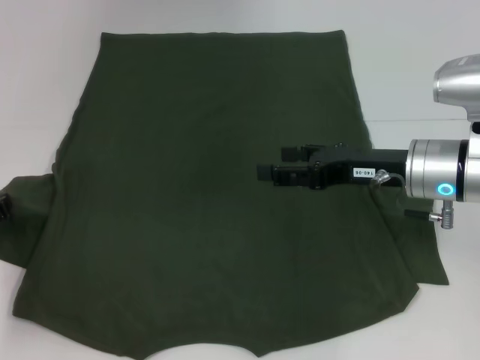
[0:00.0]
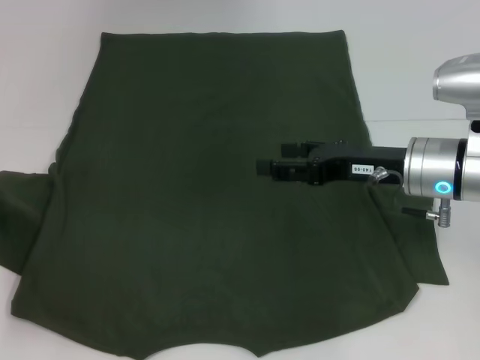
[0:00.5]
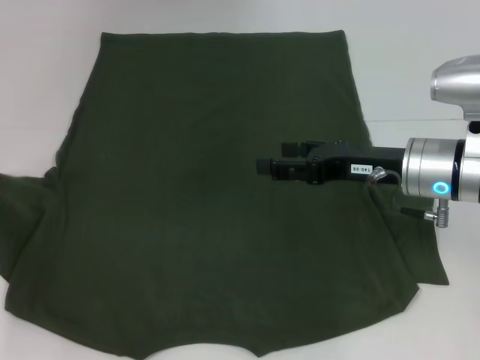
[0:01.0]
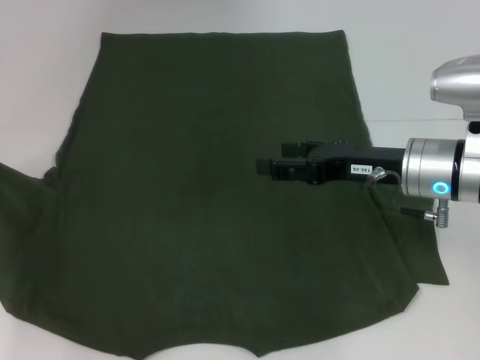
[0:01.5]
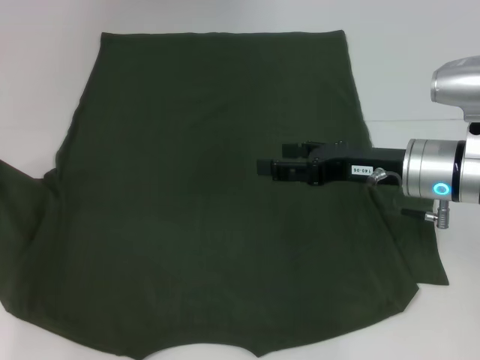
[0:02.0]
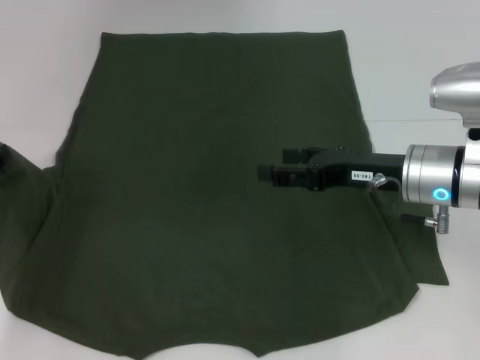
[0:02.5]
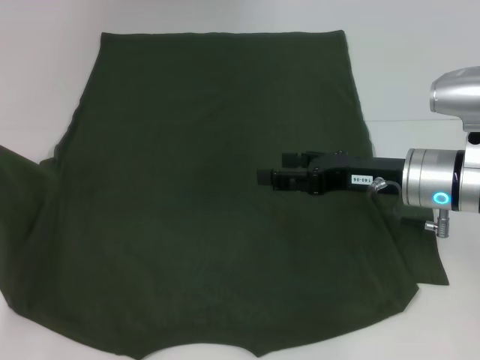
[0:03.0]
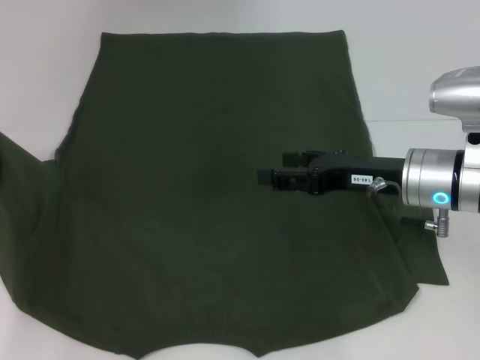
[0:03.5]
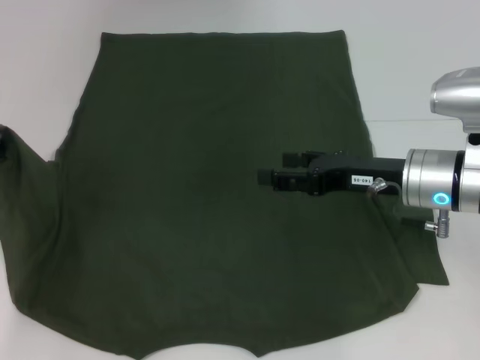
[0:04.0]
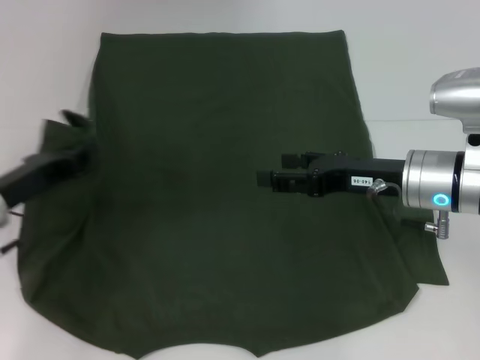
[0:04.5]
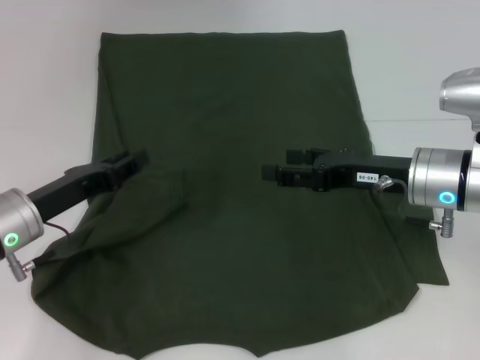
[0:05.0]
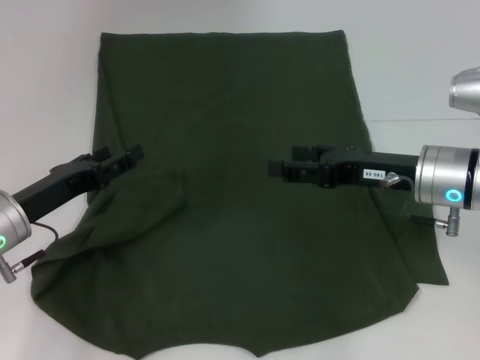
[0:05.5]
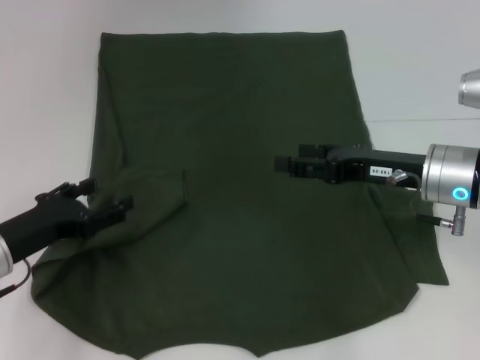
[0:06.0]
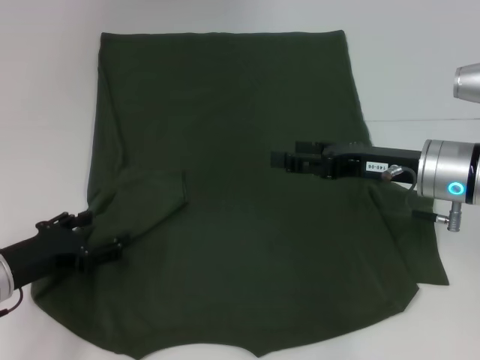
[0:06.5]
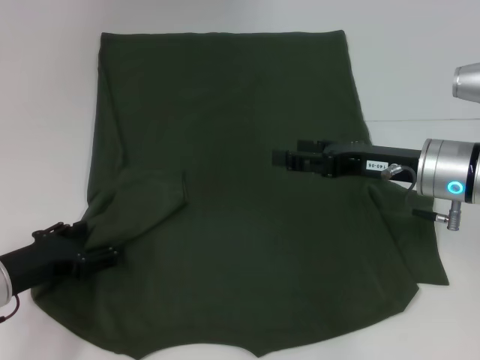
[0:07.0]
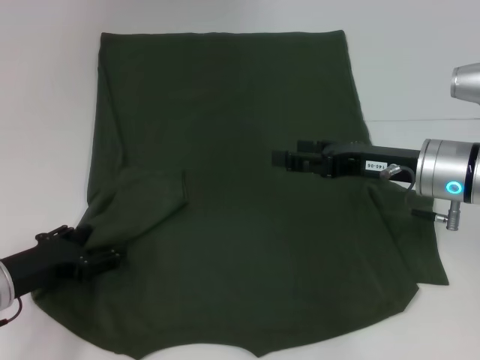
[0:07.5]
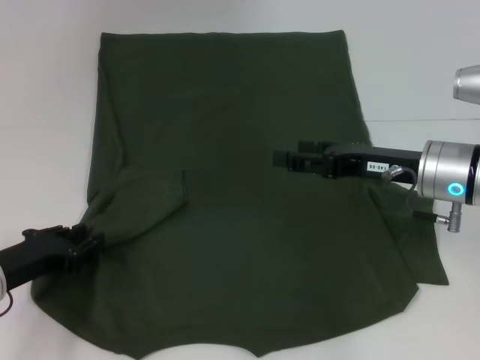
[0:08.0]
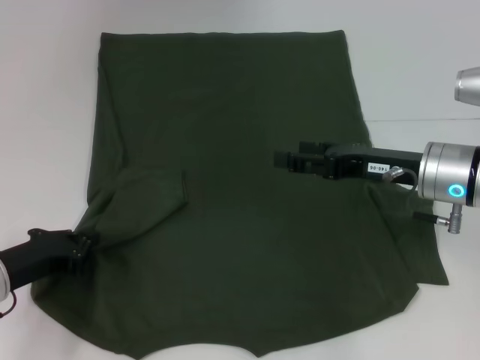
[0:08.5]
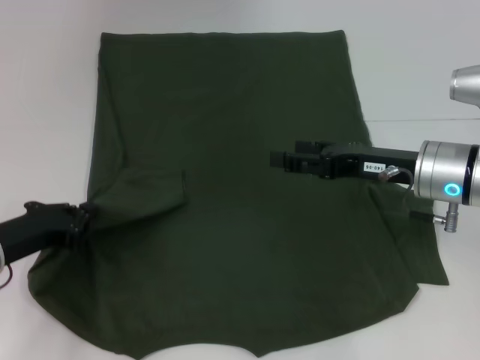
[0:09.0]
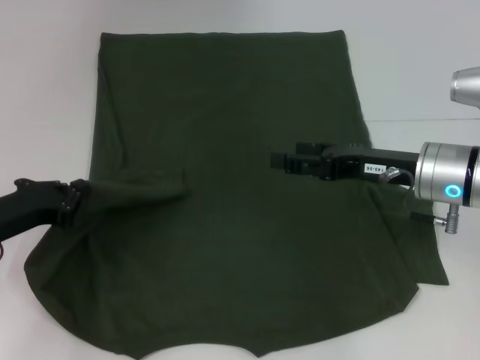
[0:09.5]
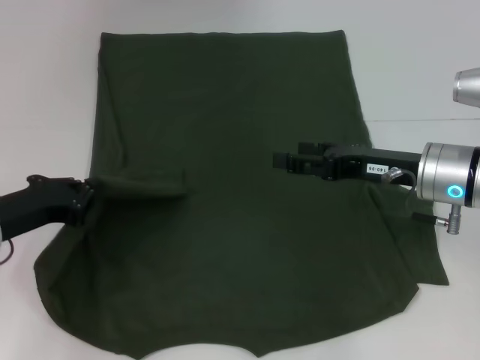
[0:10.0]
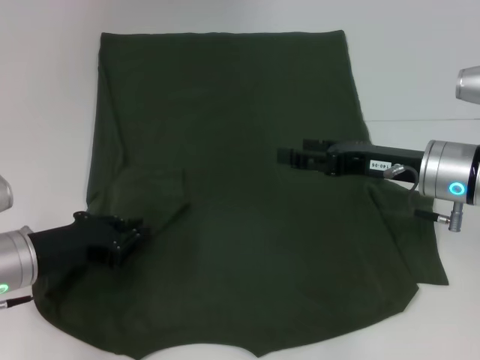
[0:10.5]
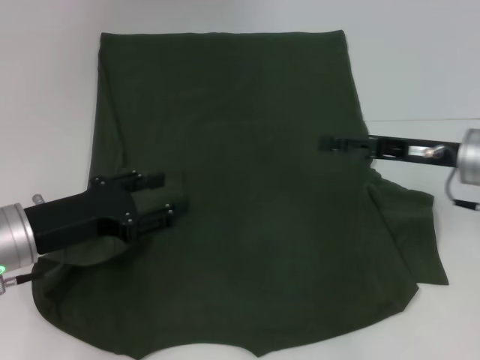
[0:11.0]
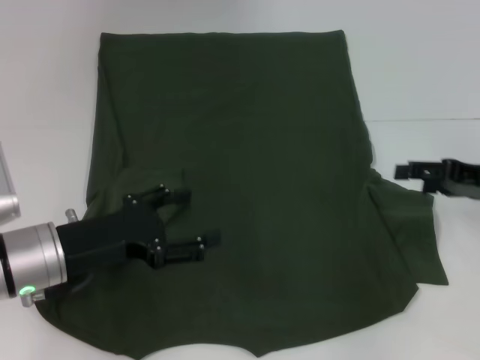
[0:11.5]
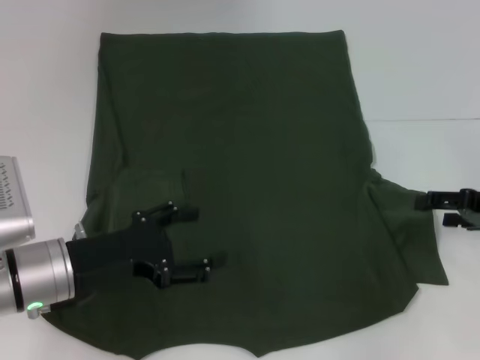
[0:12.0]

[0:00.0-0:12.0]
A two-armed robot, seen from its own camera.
Step, 0:00.0 to 0:05.0: Fold the bottom left sleeve with your left hand.
0:00.0 to 0:02.0: There are only small adjustments of the grippers.
0:02.0 to 0:04.0: The grippers stay close to where they were, moving slightly.
0:04.0 to 0:06.0: The left gripper travels to the right by roughly 5 cm, and opens up.
0:06.0 to 0:08.0: The left gripper closes up.
0:08.0 to 0:10.0: The left gripper shifts some 5 cm upward, and closes its fingers.
0:10.0 to 0:12.0: The right gripper heads to the right, covering some 15 cm, while the left gripper shifts approximately 5 cm to the right, and opens up.

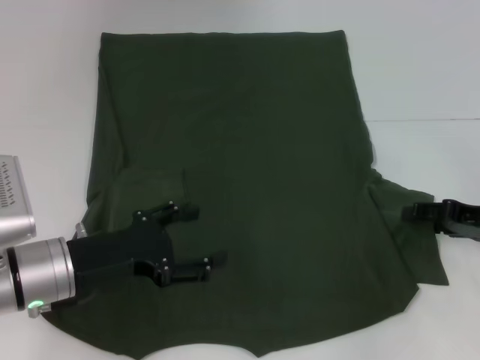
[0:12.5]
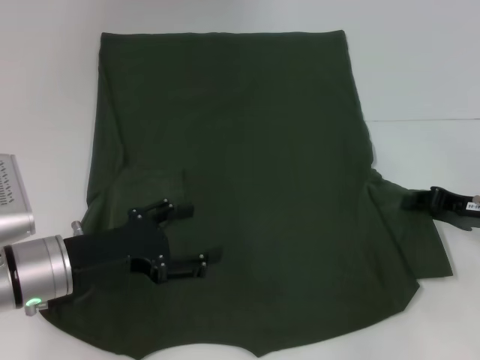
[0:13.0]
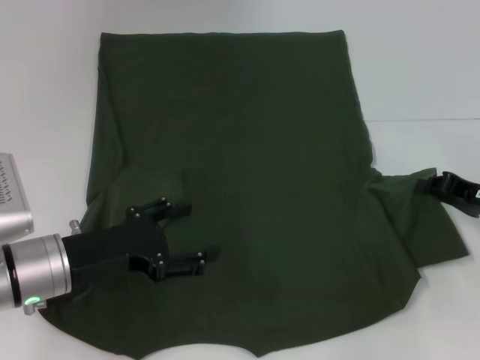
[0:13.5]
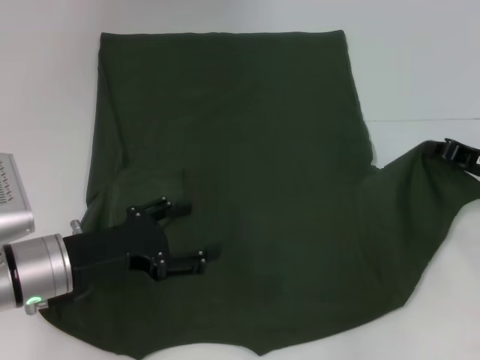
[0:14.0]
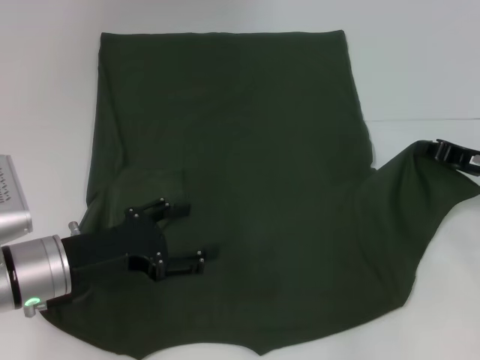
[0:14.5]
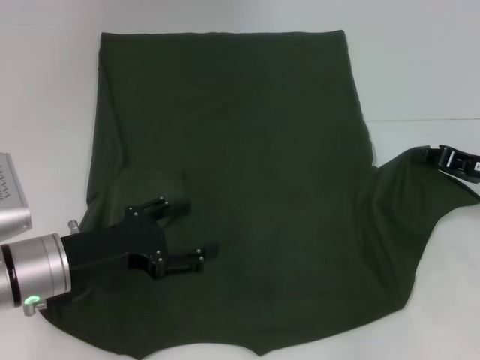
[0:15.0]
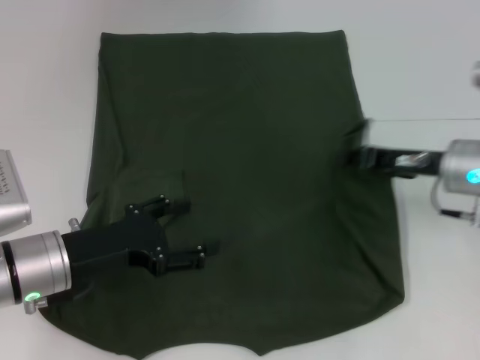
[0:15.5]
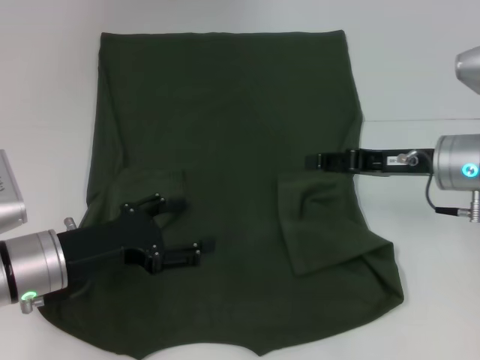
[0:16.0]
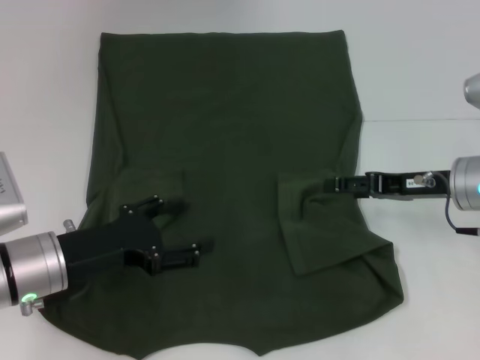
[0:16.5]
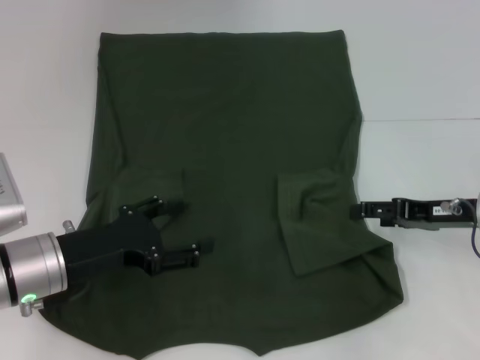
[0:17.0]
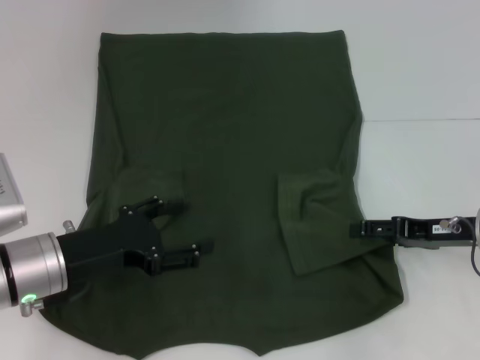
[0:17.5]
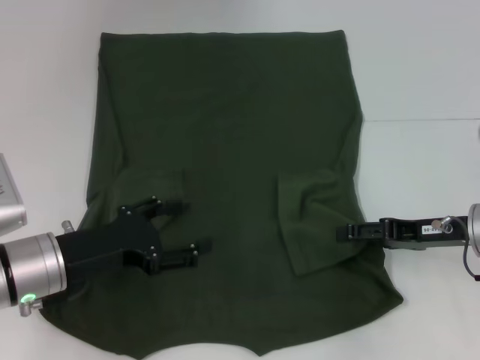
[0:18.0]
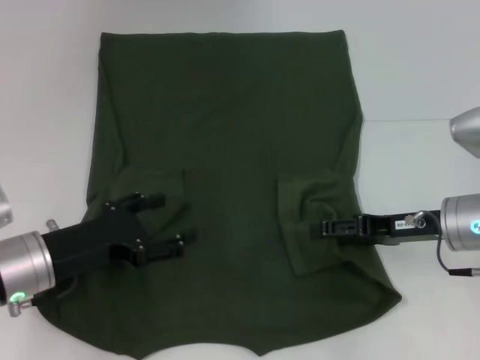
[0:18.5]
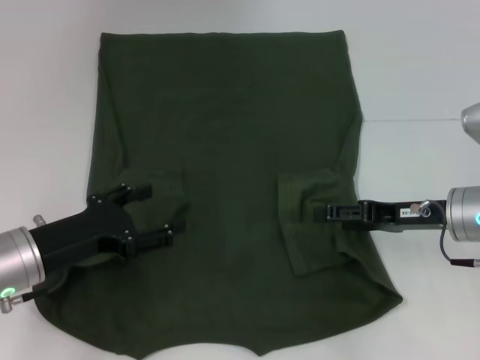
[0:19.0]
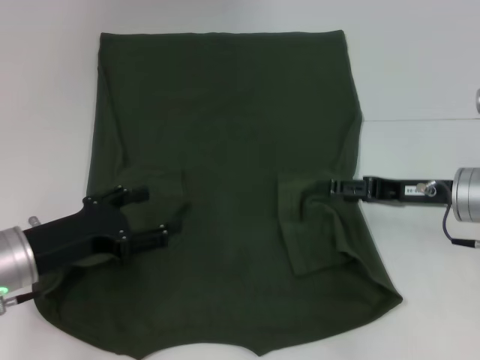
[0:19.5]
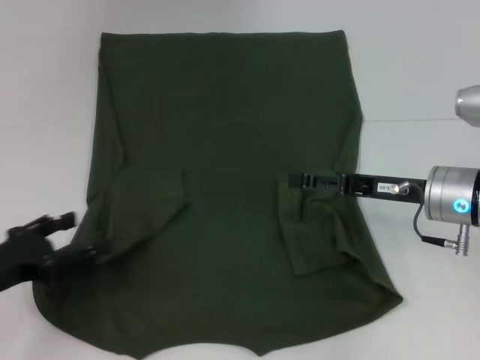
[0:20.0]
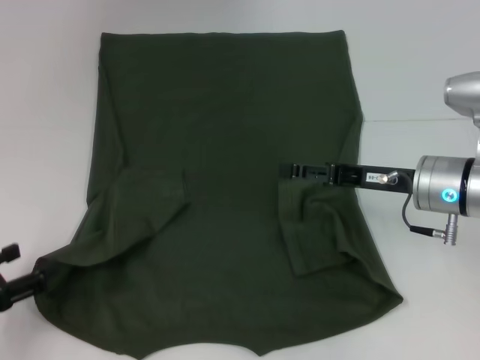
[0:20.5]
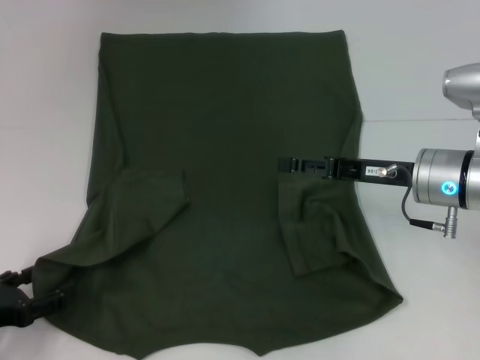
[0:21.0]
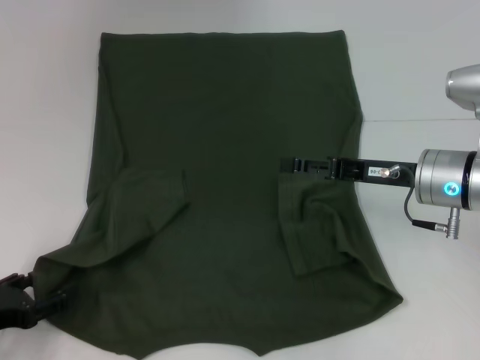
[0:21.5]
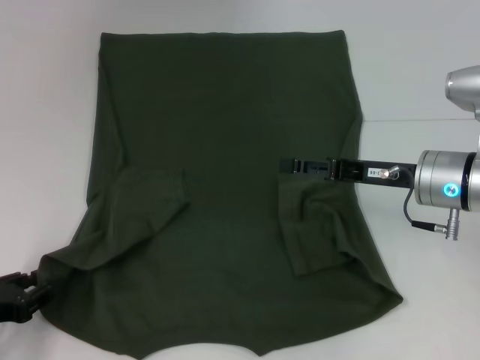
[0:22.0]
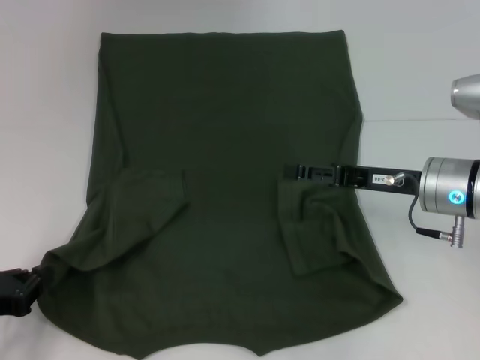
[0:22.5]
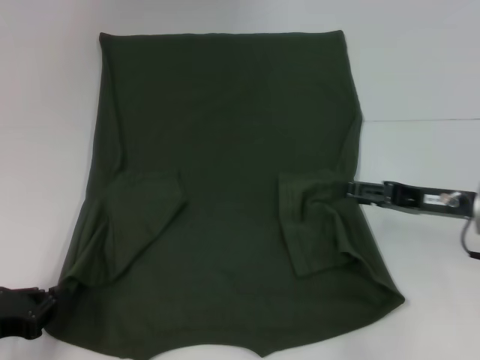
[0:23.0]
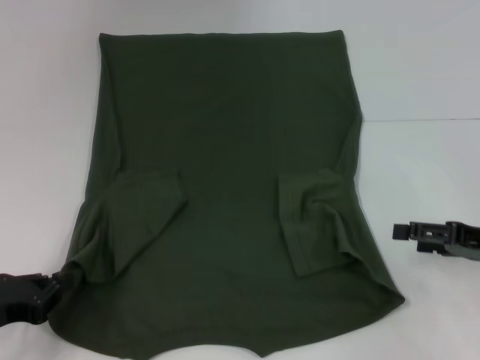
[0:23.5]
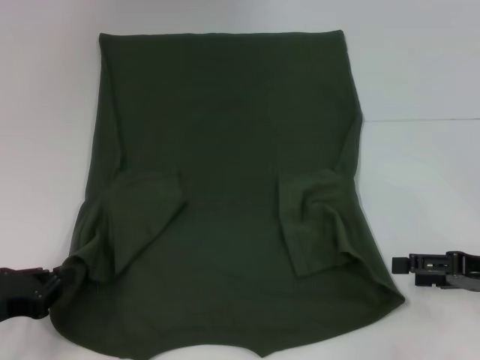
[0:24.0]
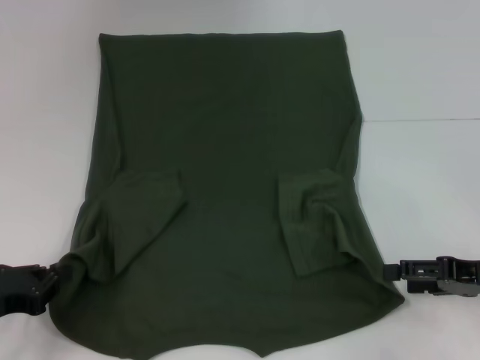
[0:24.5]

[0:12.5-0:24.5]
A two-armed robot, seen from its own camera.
Step, 0:12.5 to 0:16.0: Fold the bottom right sleeve with your right hand.
Step, 0:16.5 to 0:22.0: Grab the bottom left corner with your left hand.
0:12.5 to 0:14.5: The right gripper closes up.
0:14.5 to 0:16.5: The right gripper moves to the left, approximately 5 cm, and opens up.
0:16.5 to 0:18.5: The grippers move only a little.
0:18.5 to 0:20.5: The left gripper is displaced to the left and backward by about 15 cm.
0:20.5 to 0:22.5: The left gripper closes.
0:22.5 to 0:24.5: The right gripper is displaced to the right and backward by some 10 cm.

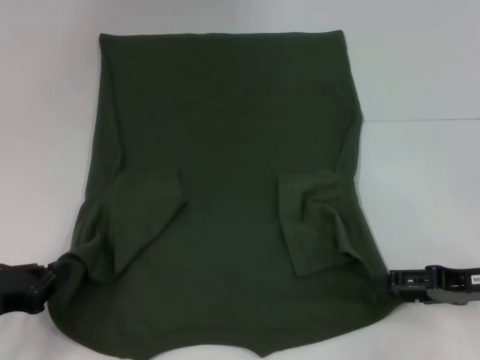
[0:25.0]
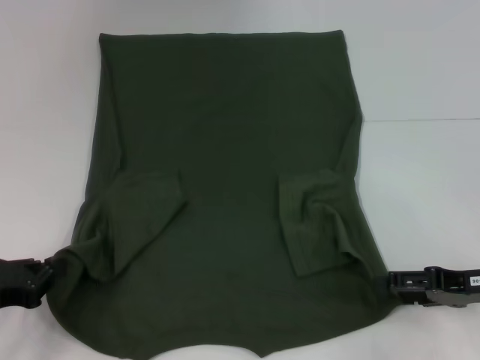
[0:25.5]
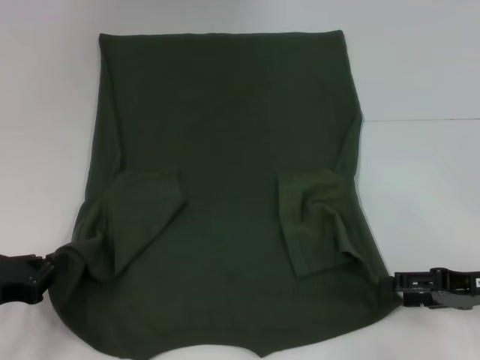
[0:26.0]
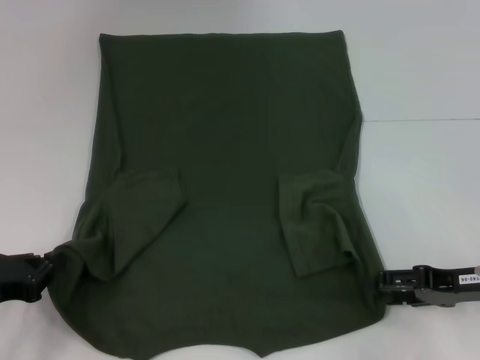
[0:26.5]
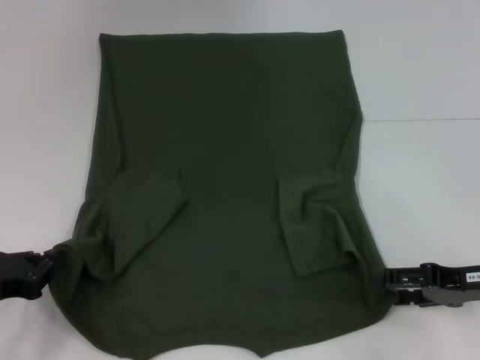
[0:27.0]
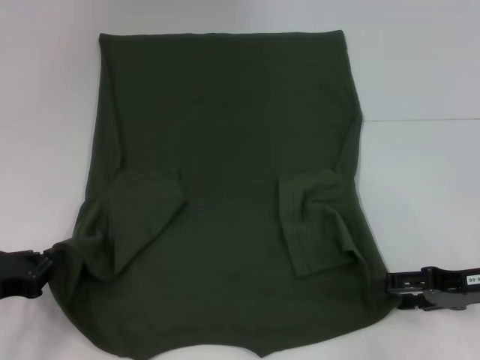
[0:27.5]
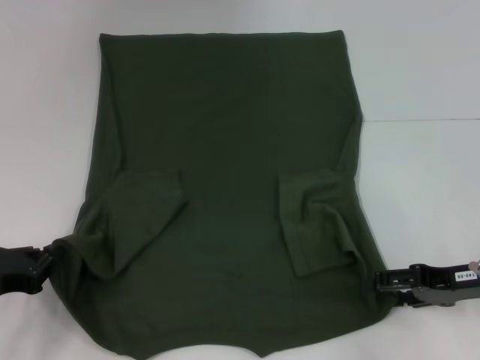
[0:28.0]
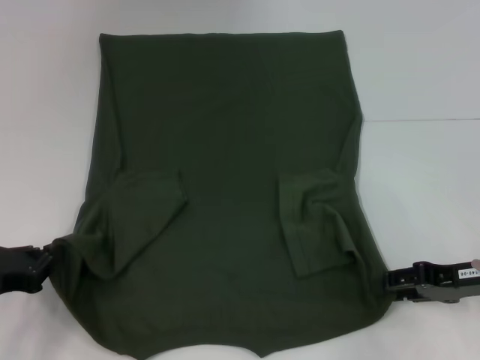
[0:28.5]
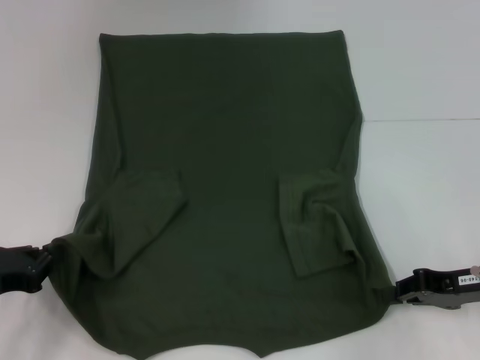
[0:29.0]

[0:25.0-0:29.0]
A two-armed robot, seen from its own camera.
Step, 0:25.0 to 0:28.5: Grab the bottom right corner with your right hand.
0:25.0 to 0:27.0: The grippers stay close to where they were, moving slightly.
0:27.0 to 0:29.0: The right gripper closes its fingers.
